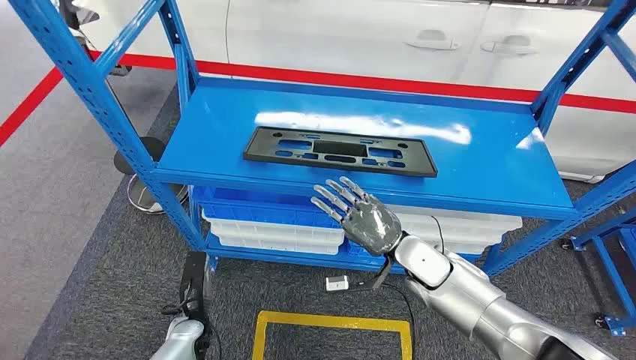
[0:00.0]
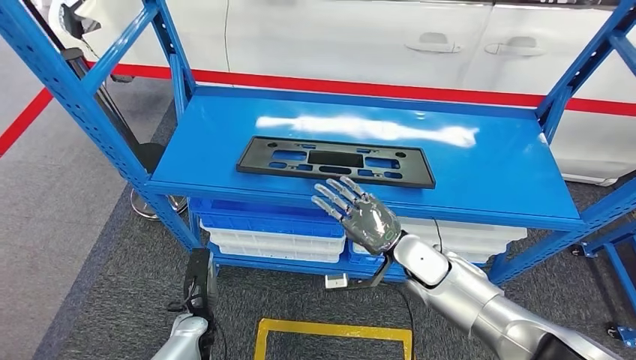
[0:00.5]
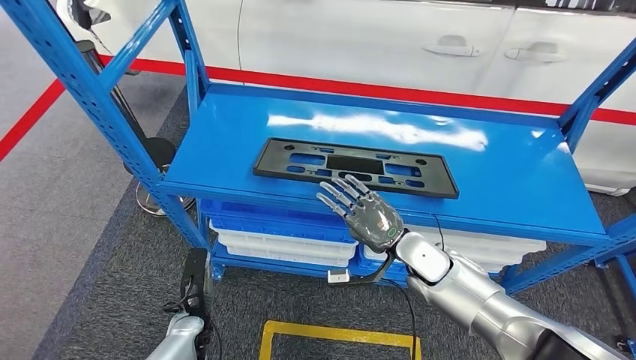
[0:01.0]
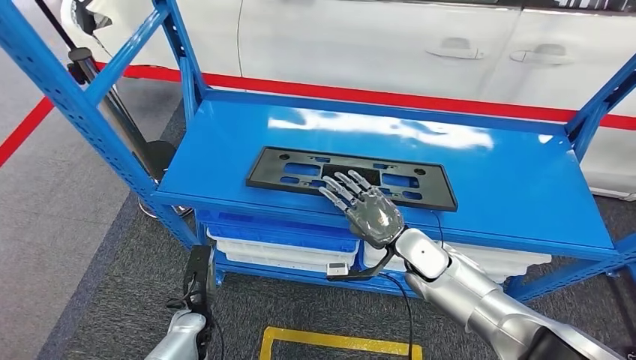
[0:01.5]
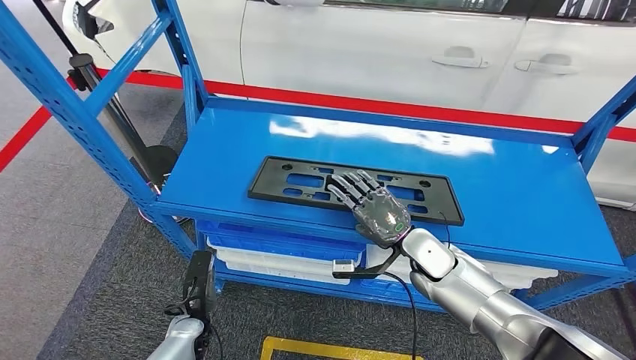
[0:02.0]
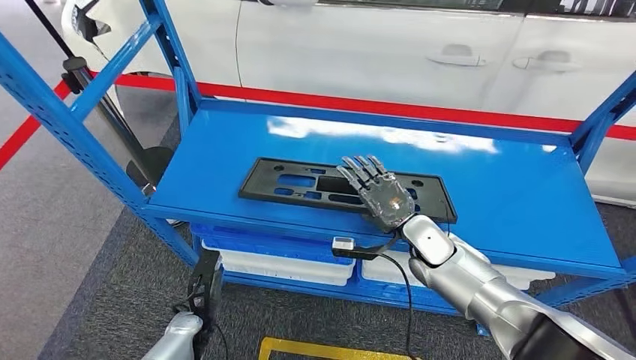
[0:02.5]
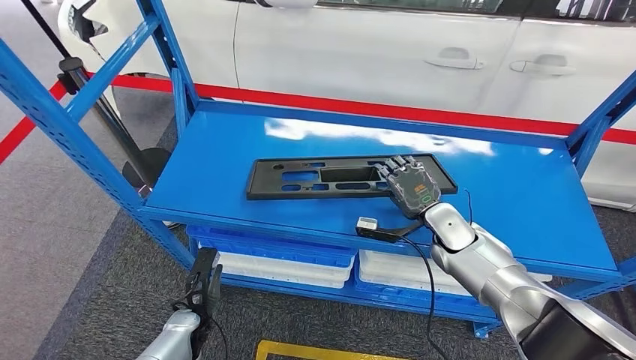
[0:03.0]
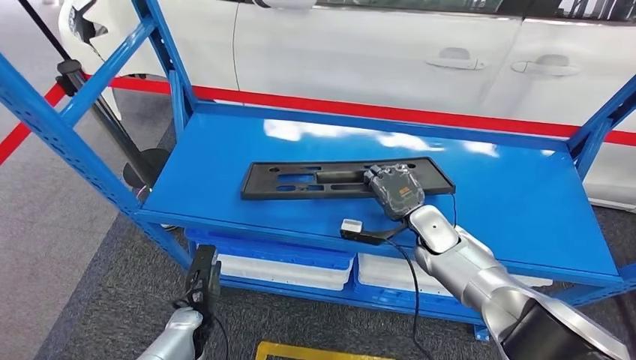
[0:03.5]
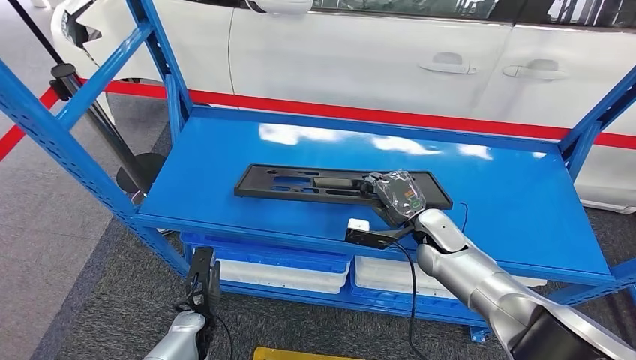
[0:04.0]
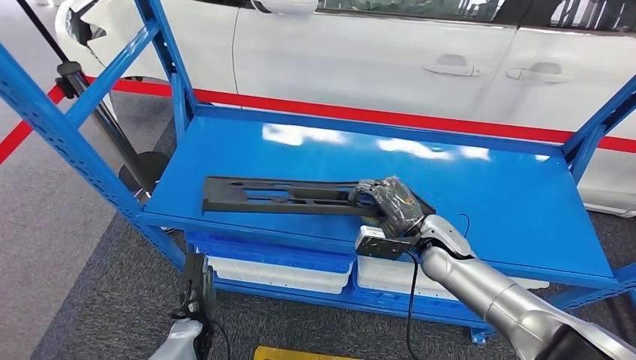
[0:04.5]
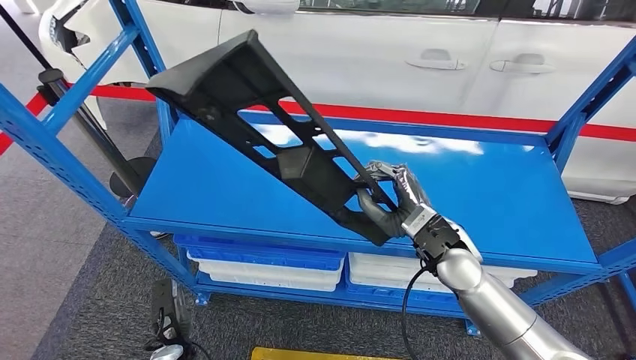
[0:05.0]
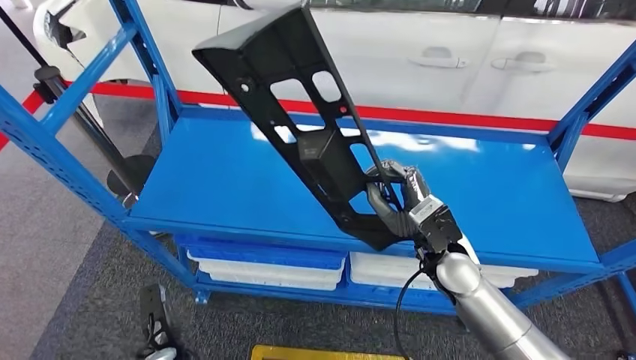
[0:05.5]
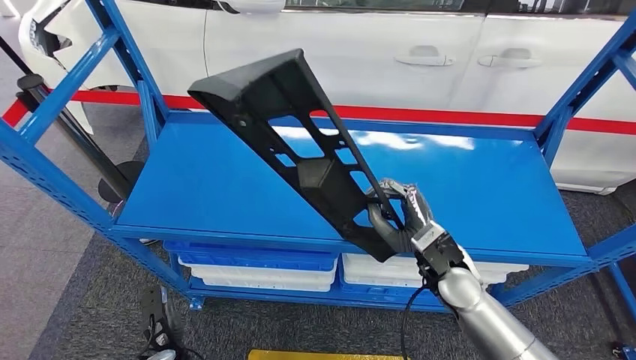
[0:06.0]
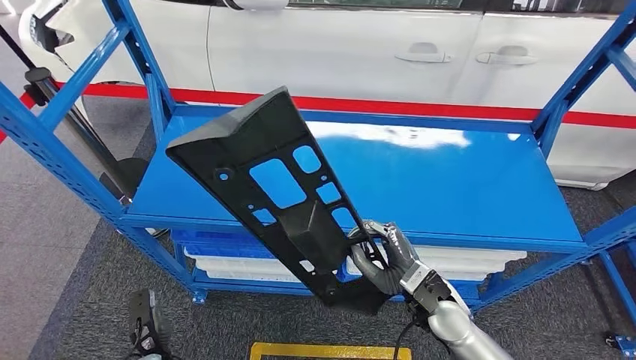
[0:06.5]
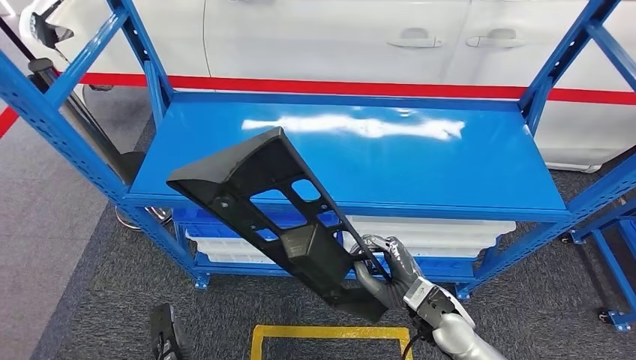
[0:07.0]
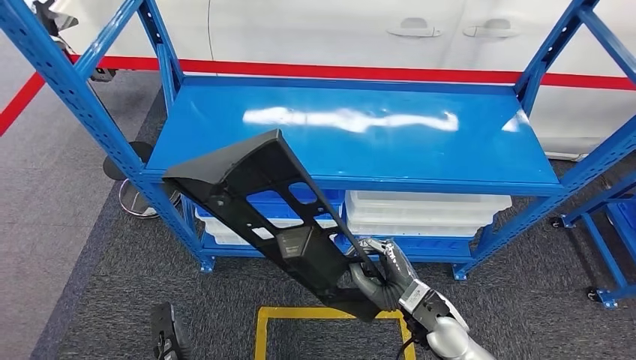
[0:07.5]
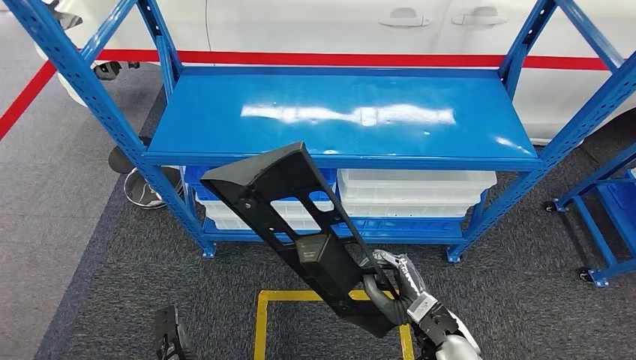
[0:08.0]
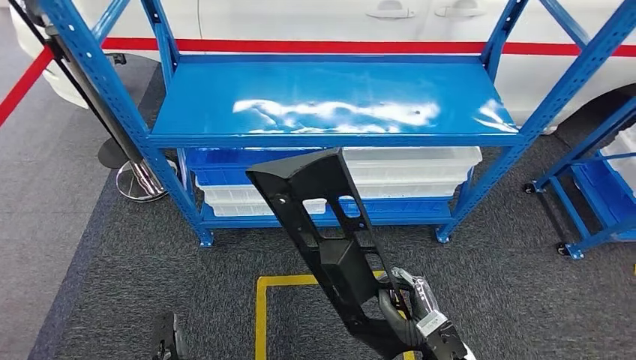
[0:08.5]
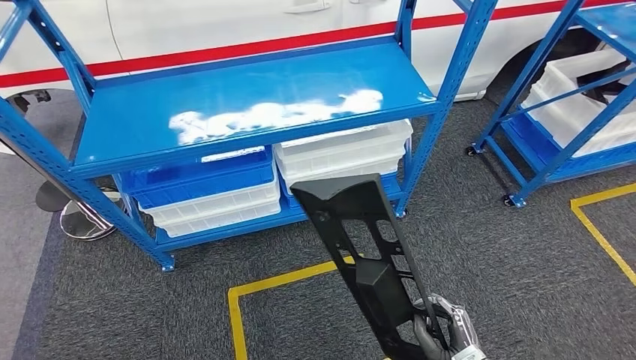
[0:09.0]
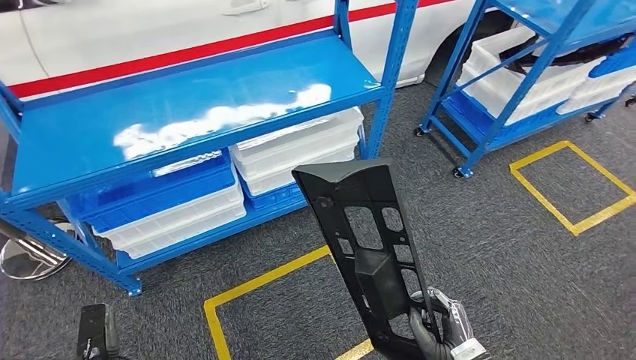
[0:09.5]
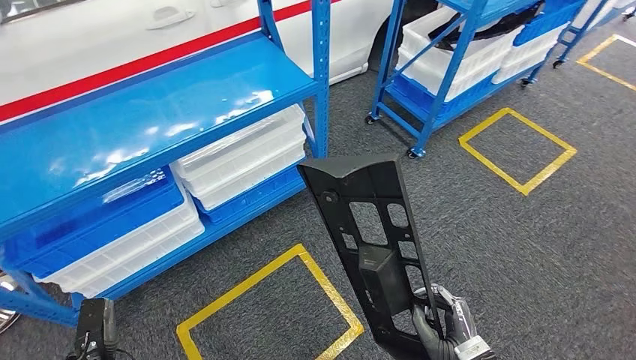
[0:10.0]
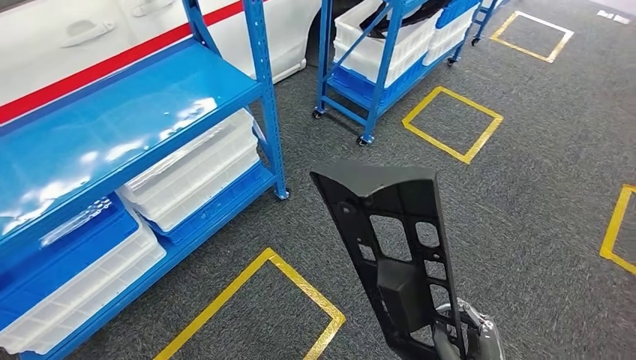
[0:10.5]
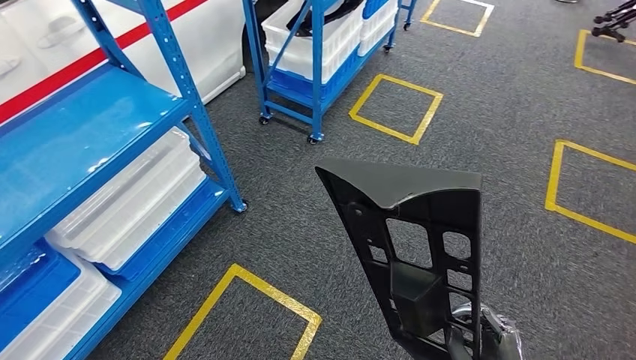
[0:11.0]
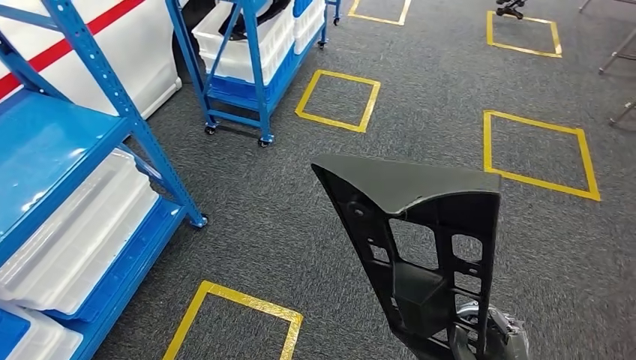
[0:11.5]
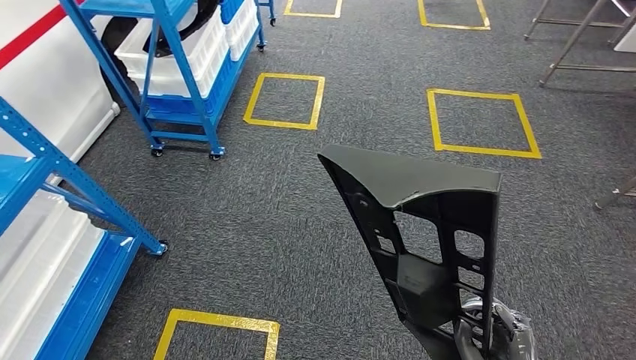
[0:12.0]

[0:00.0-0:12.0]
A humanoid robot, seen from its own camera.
Step, 0:00.0 to 0:05.5: Pick up the large material from the shelf.

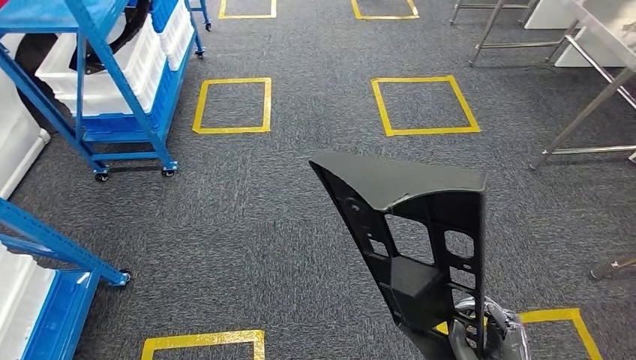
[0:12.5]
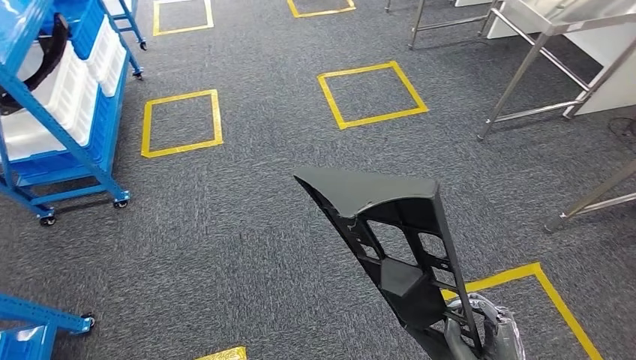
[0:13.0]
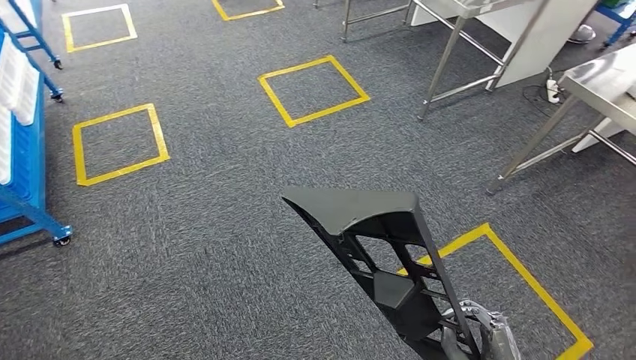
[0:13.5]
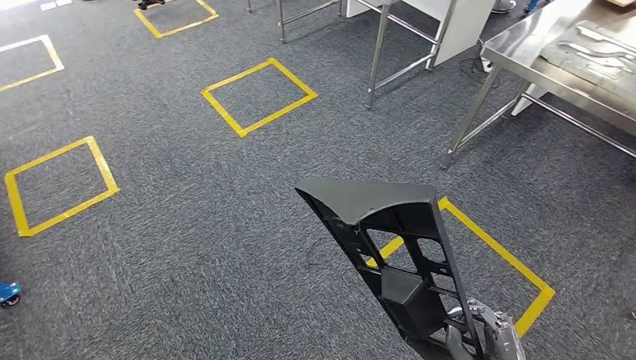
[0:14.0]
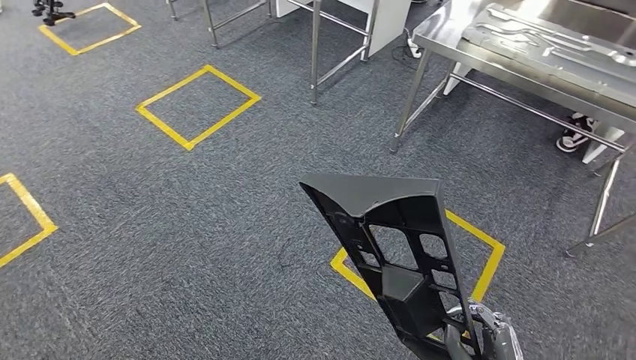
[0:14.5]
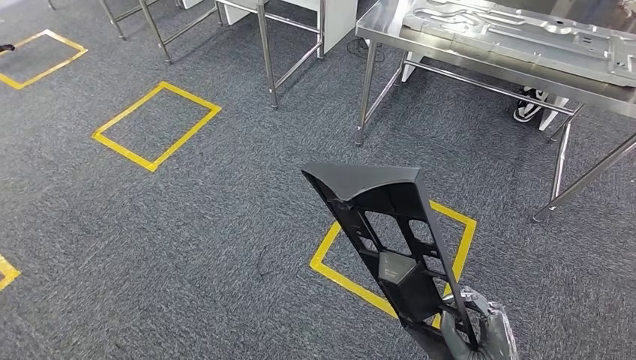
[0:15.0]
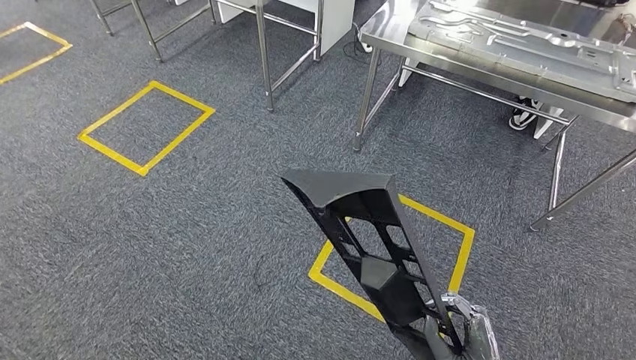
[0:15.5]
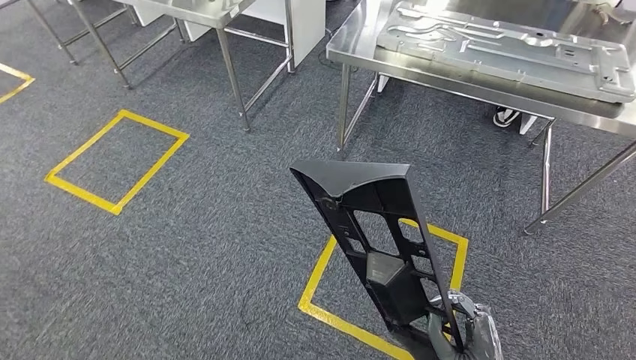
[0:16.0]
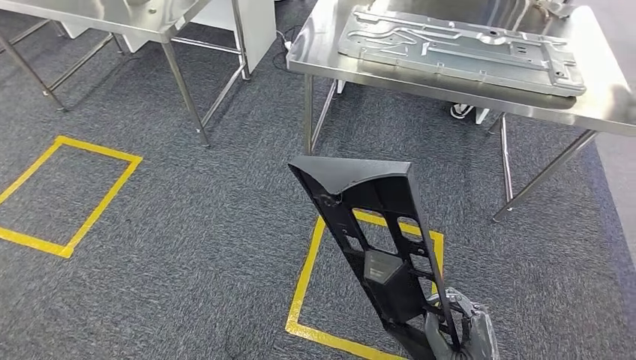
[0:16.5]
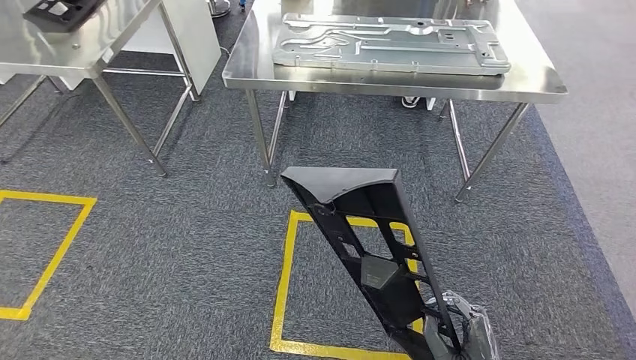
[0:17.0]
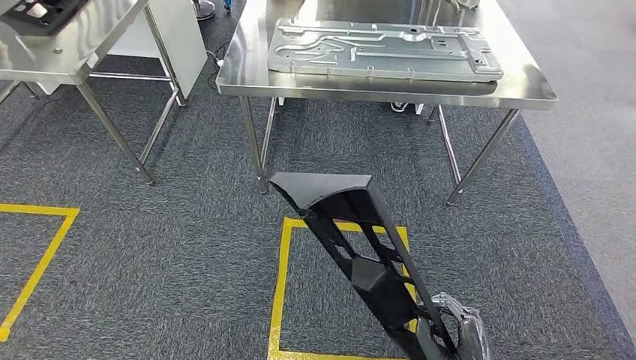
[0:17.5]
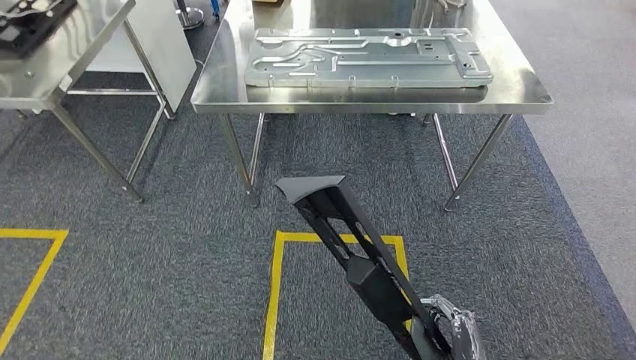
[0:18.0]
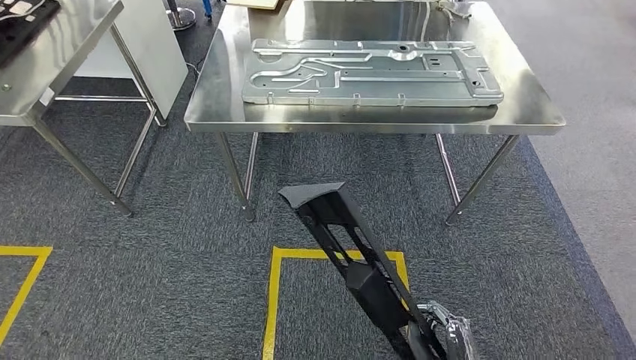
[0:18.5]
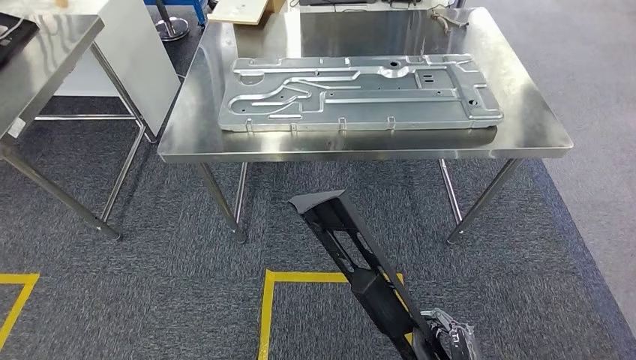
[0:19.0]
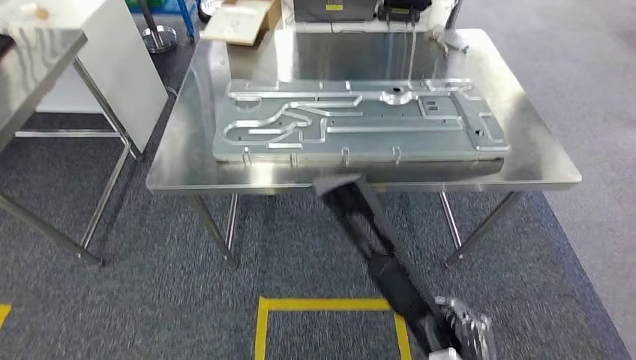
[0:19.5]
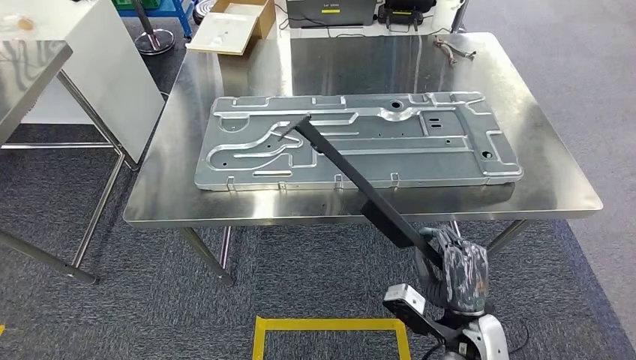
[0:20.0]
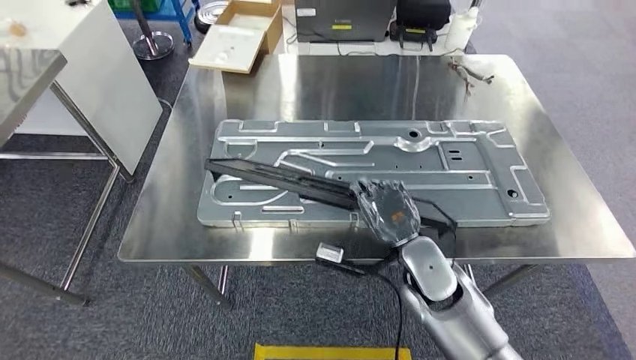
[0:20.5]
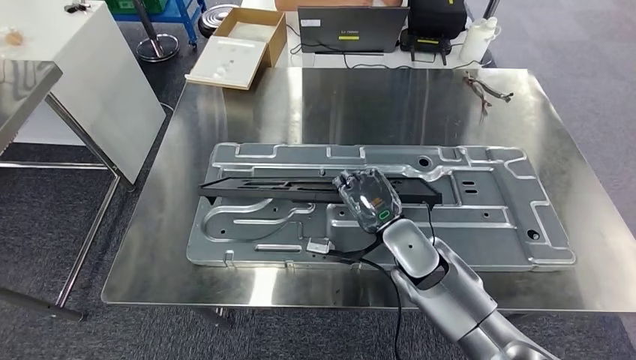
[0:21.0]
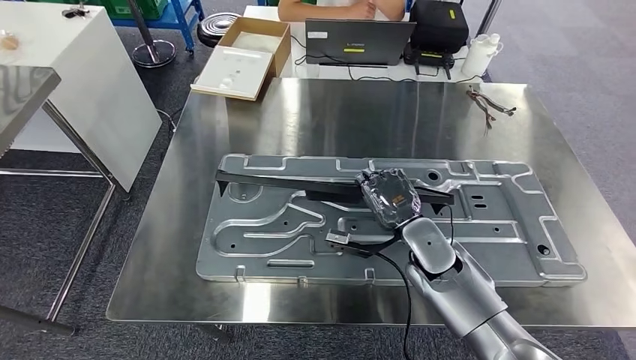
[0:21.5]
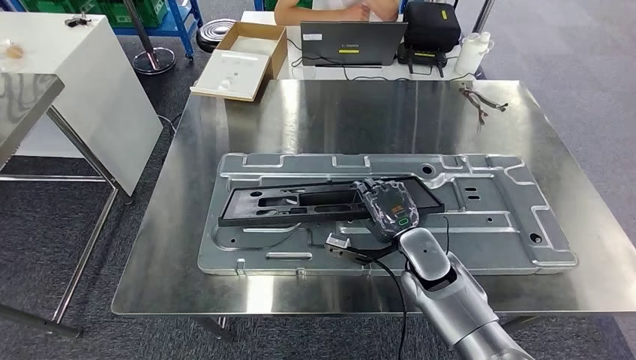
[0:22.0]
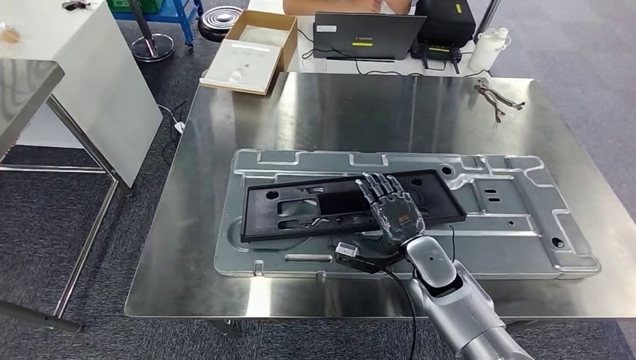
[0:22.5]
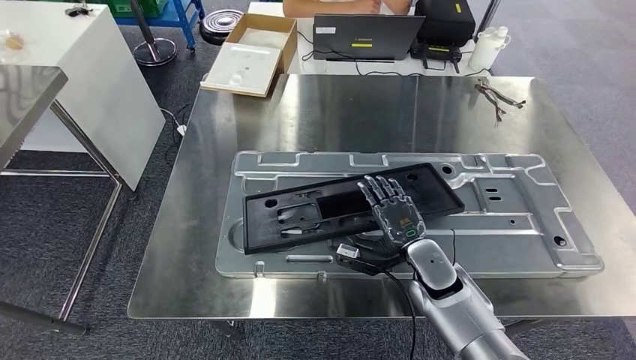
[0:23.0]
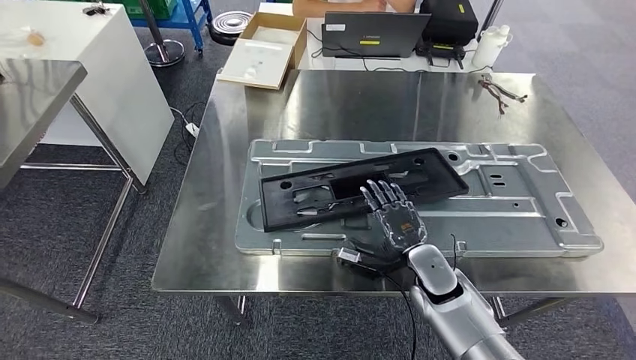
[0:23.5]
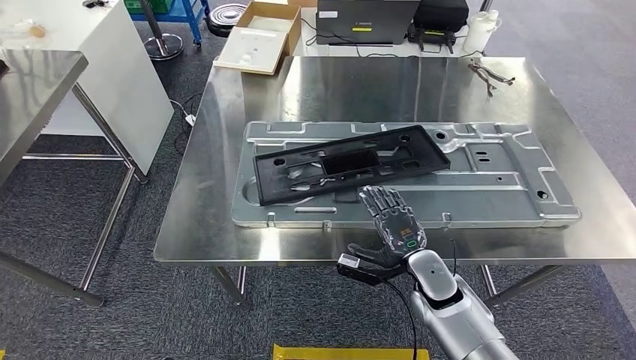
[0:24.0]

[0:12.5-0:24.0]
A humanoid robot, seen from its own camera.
Step, 0:12.5 to 0:18.5: Move the large material to the workbench.
